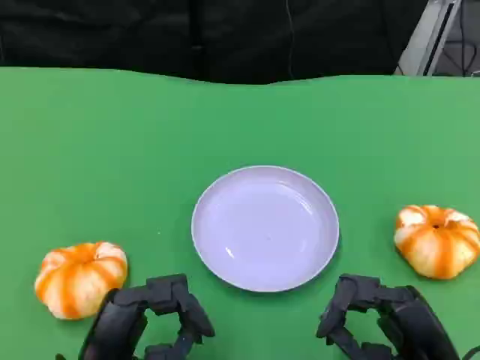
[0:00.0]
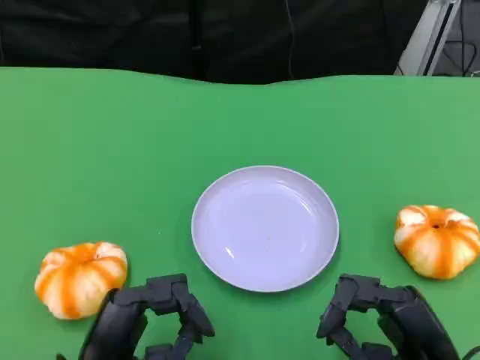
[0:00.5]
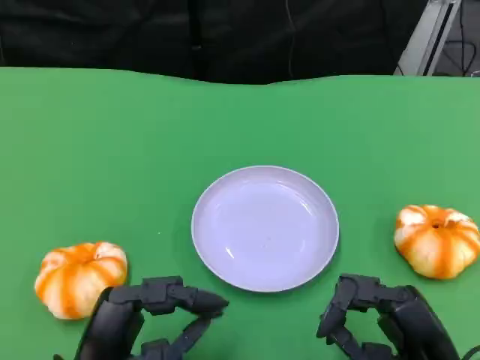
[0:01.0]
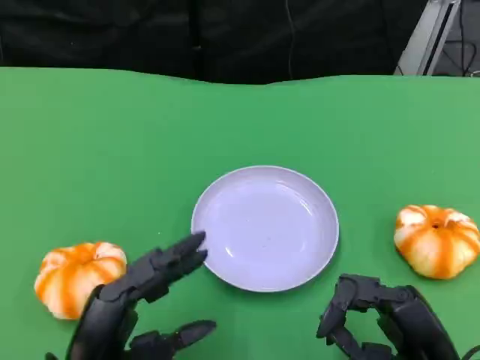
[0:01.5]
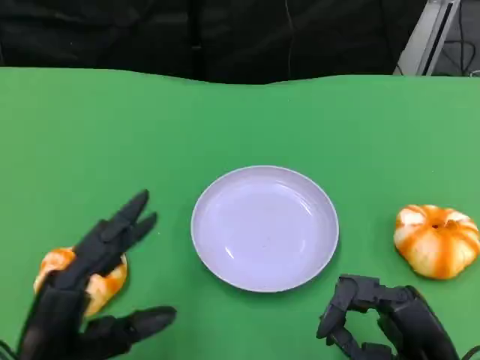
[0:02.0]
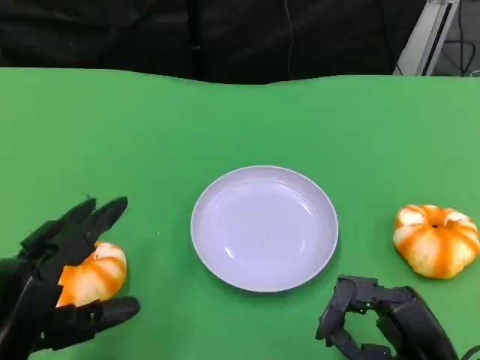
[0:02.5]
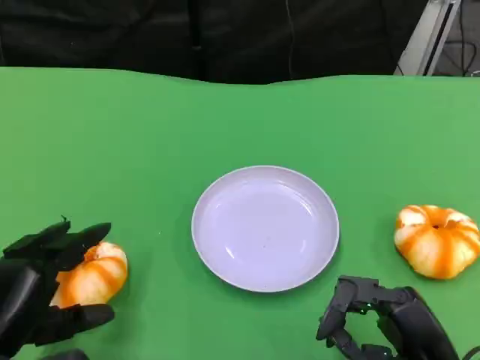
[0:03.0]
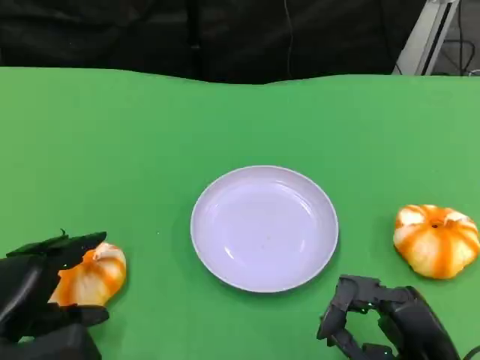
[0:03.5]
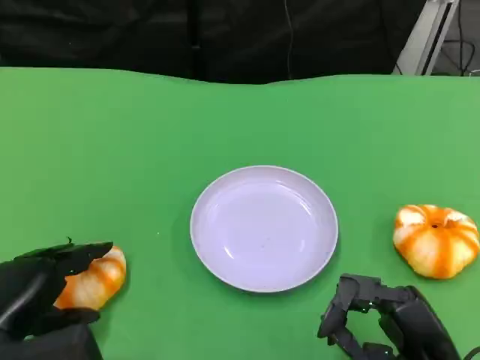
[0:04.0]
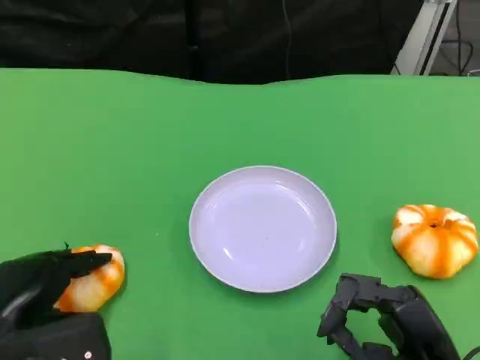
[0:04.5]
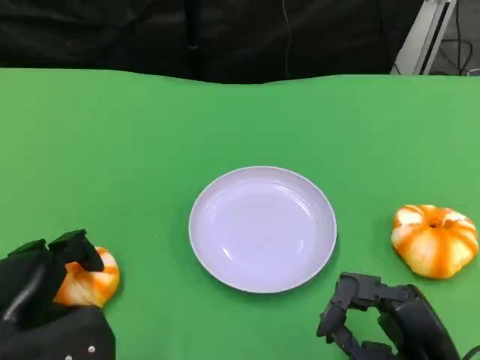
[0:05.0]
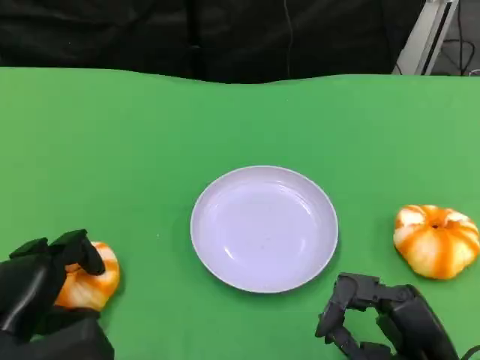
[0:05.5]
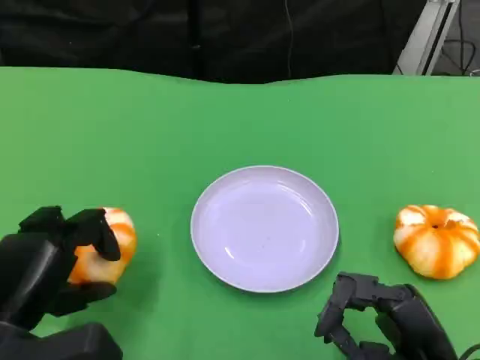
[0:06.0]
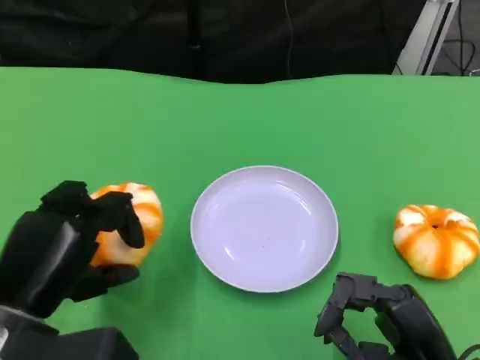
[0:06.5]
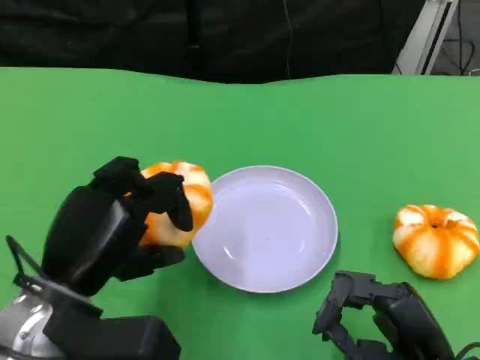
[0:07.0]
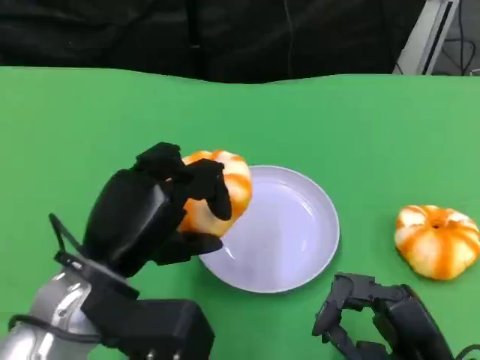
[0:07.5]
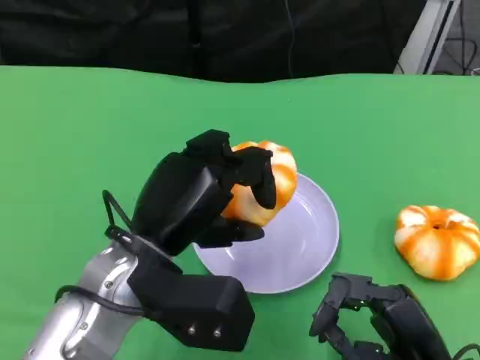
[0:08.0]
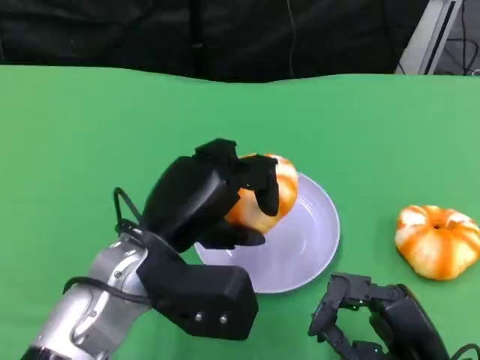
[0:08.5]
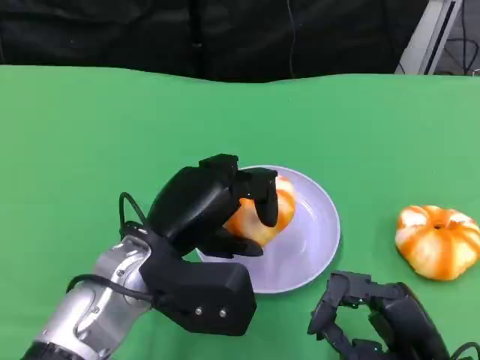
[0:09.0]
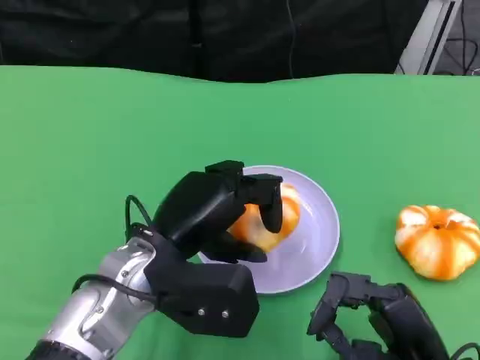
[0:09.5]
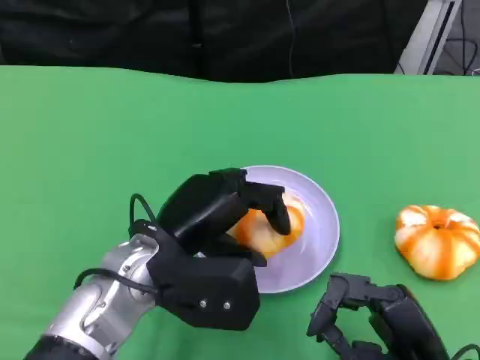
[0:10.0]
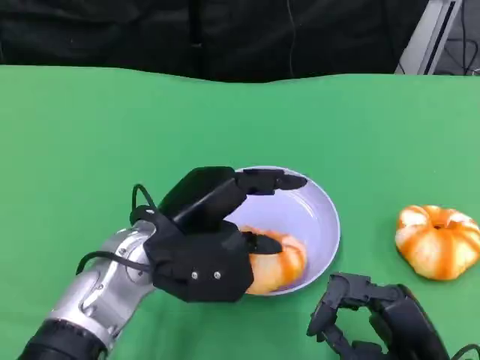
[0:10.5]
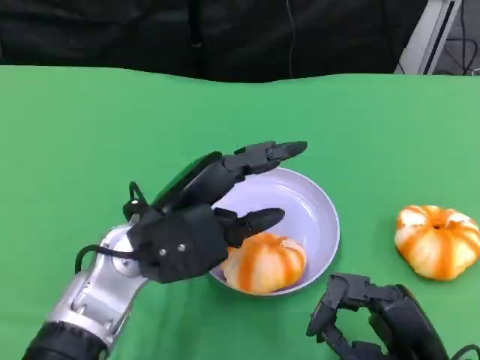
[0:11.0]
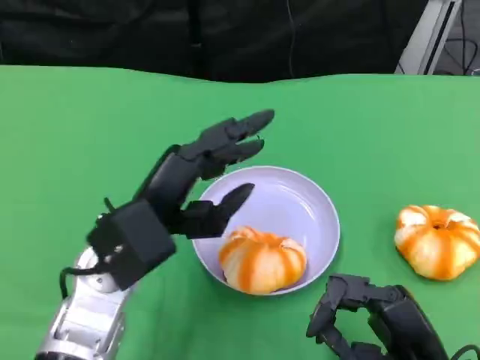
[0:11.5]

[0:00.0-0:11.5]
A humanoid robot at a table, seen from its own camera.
Task of the whole recording: Grasp the bread from the table and place it into the plate.
0:00.0 to 0:02.0: The left hand shifts by approximately 5 cm.
0:02.0 to 0:04.0: The left hand moves about 5 cm.
0:04.0 to 0:06.0: There are only small adjustments of the hands.
0:06.0 to 0:07.5: The left hand goes approximately 10 cm to the right and upward.
0:07.5 to 0:09.5: The left hand shifts by roughly 5 cm.

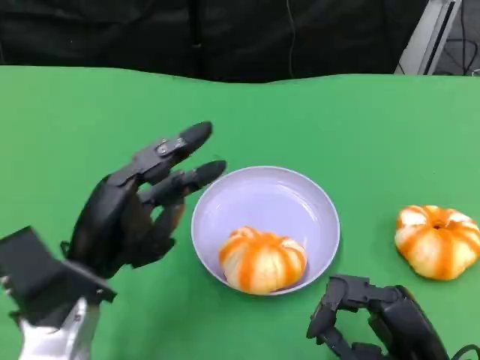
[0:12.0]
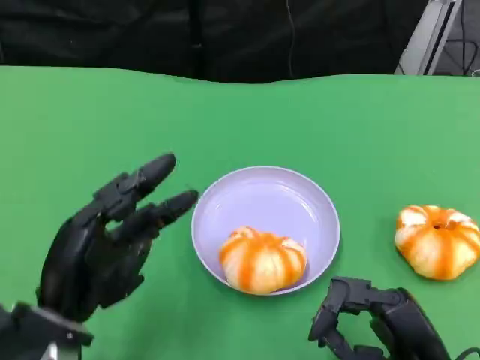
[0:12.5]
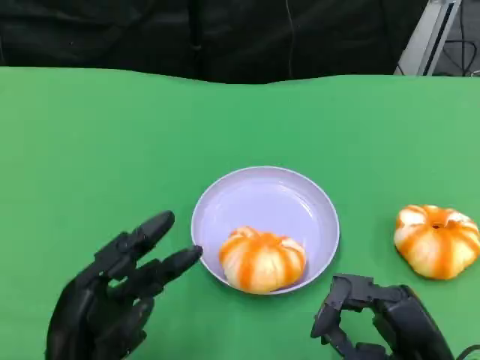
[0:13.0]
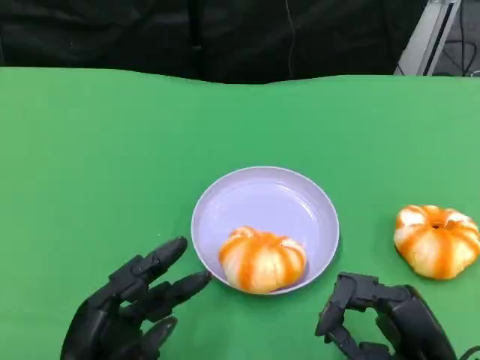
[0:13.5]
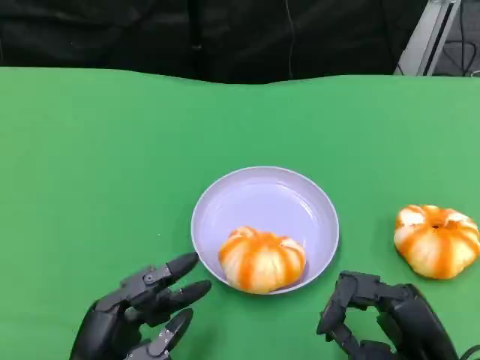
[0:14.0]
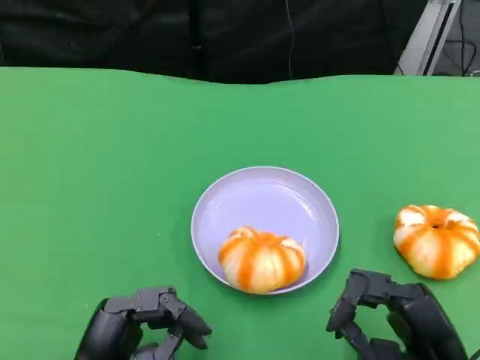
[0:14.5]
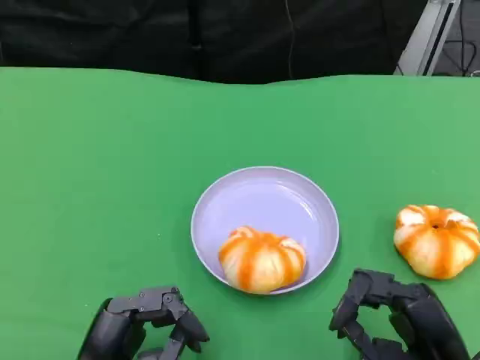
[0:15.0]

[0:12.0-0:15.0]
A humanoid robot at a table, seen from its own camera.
Task of the whole recording: Grasp the bread from the table and place it into the plate.
0:12.0 to 0:13.5: The left hand moves downward and backward, about 10 cm.
0:13.5 to 0:15.0: The hands make only small movements.

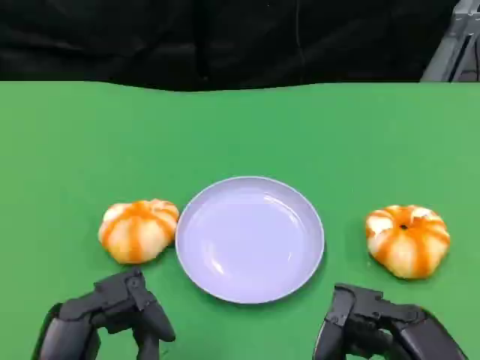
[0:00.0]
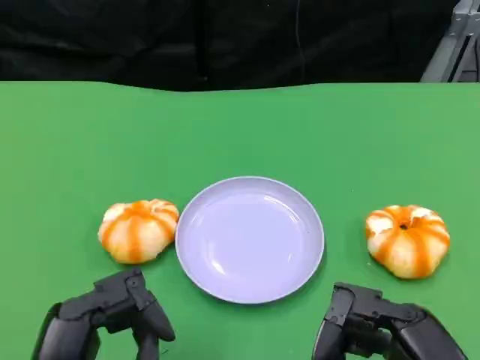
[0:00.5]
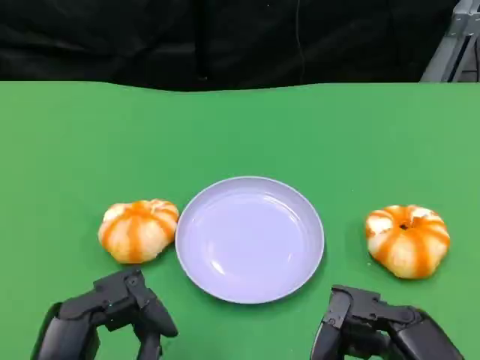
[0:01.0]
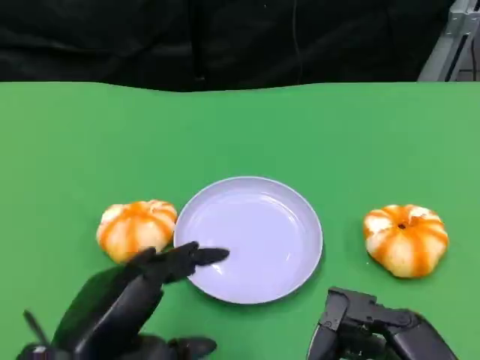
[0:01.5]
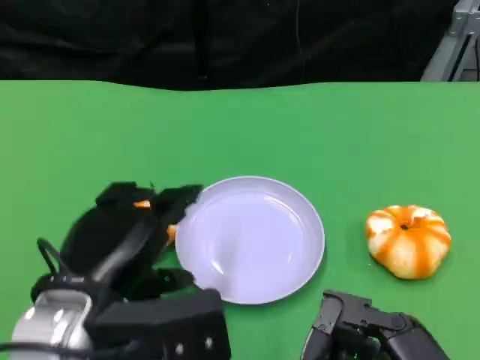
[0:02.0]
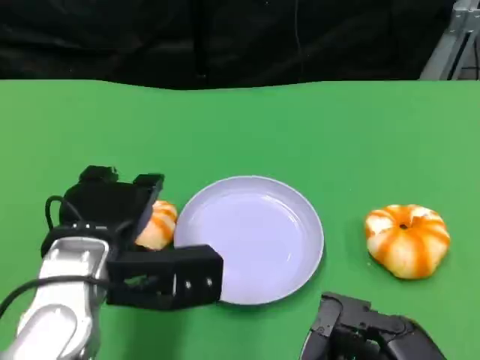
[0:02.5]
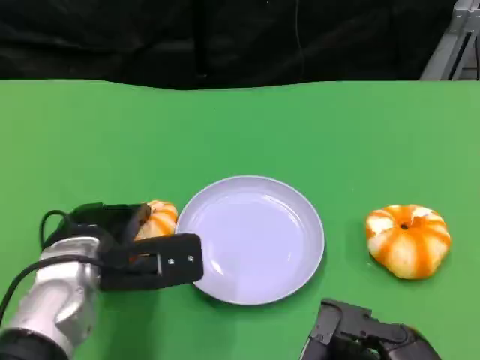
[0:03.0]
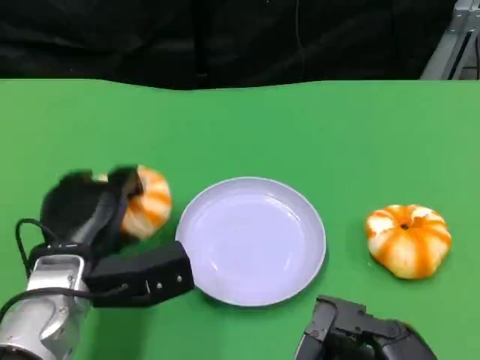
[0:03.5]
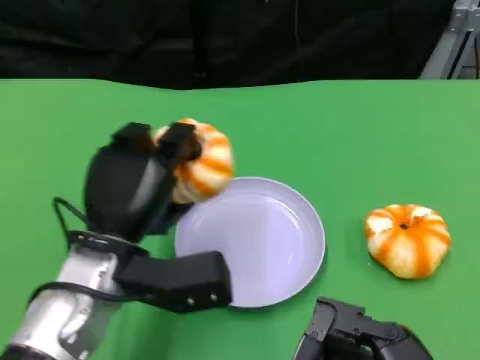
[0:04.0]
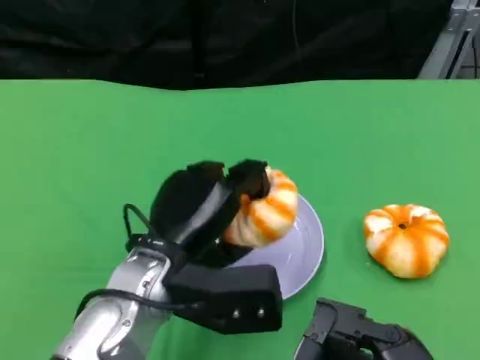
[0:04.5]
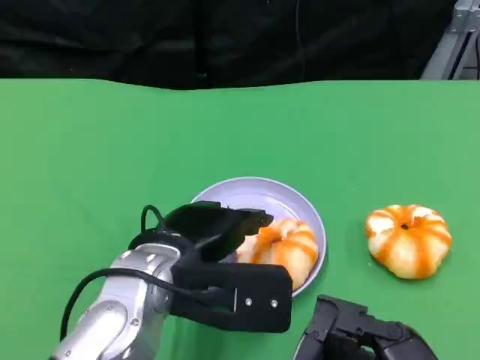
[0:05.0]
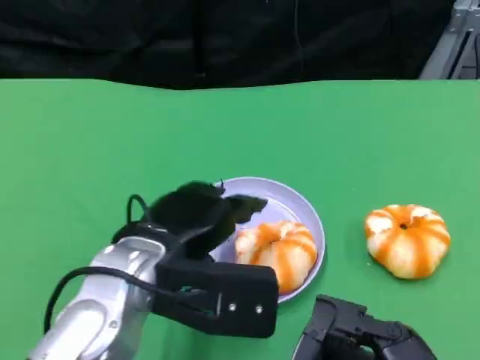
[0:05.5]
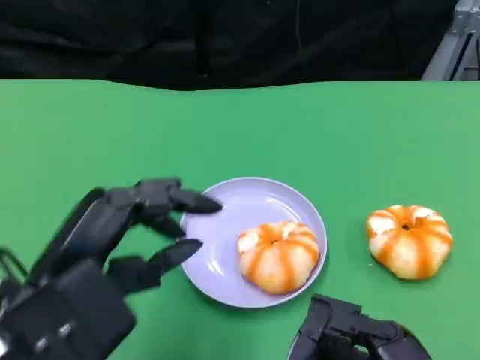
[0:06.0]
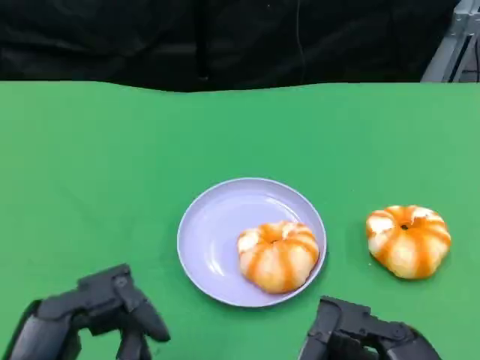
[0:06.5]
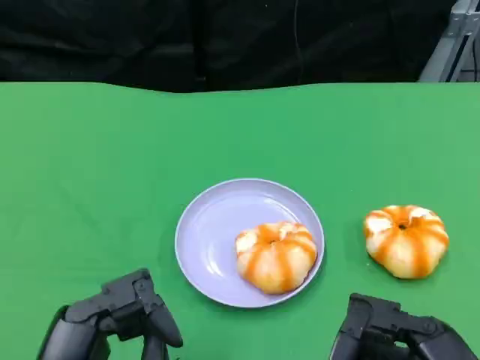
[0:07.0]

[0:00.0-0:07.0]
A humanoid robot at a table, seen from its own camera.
Task of the whole recording: Grasp the bread from the table and place it into the plate.
0:00.0 to 0:02.0: The left hand goes about 10 cm forward.
0:02.0 to 0:03.5: The left hand travels downward and forward by roughly 10 cm.
0:03.5 to 0:05.0: The left hand goes approximately 10 cm to the right and upward.
0:05.0 to 0:07.0: The left hand travels backward and to the left by some 15 cm.

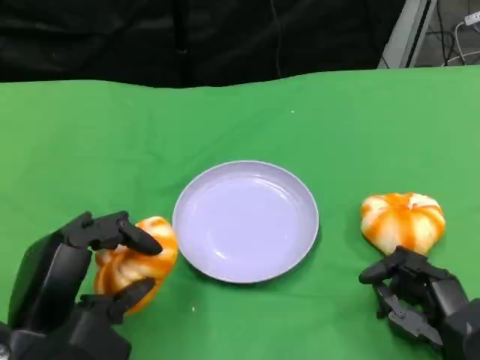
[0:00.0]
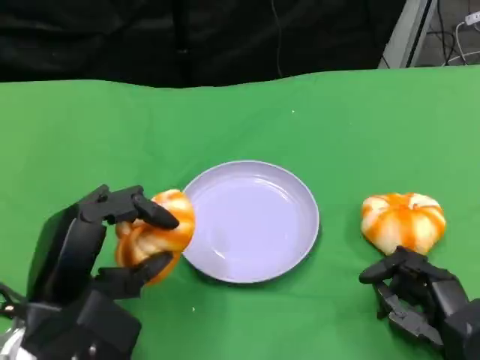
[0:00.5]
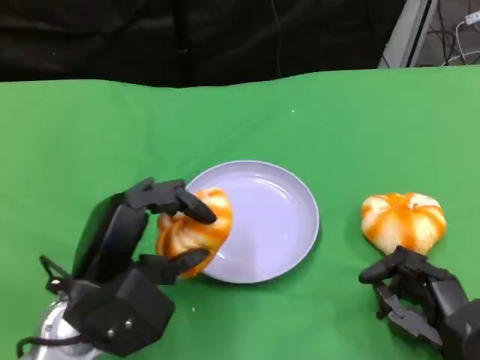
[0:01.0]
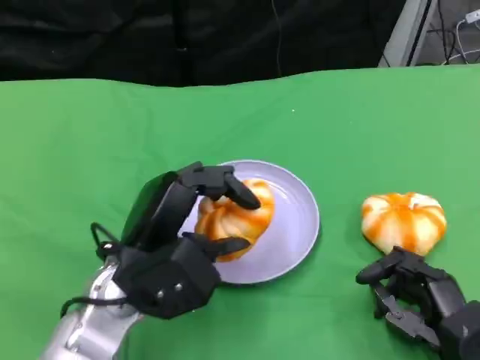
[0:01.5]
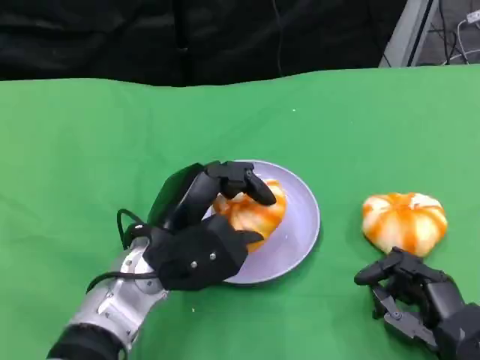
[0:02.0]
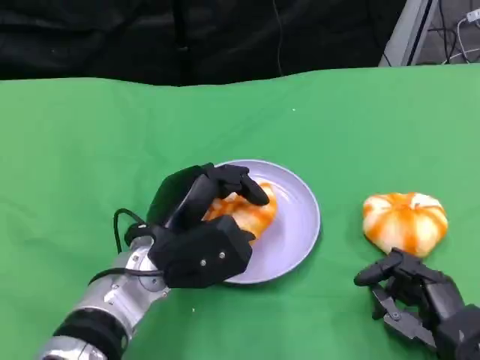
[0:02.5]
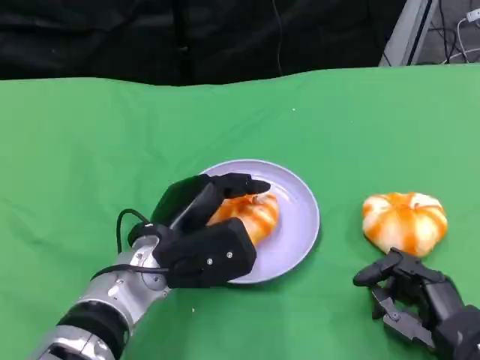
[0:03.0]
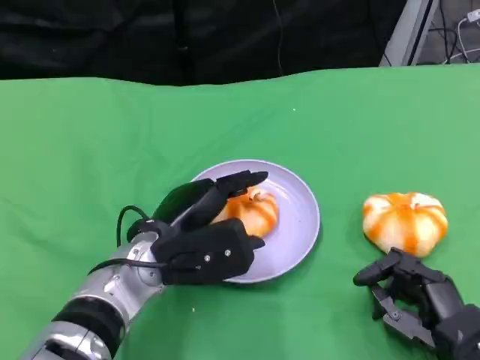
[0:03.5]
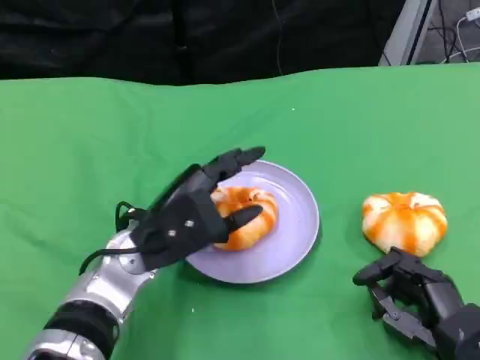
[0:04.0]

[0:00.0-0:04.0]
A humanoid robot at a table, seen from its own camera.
Task of the whole recording: Grasp the bread from the table and place it into the plate.
0:00.0 to 0:02.0: The left hand travels to the right and forward by some 15 cm.
0:02.0 to 0:04.0: The hands make only small movements.
